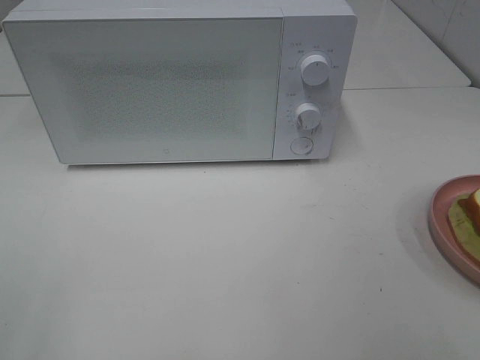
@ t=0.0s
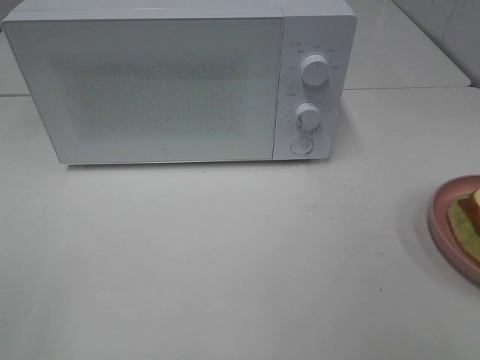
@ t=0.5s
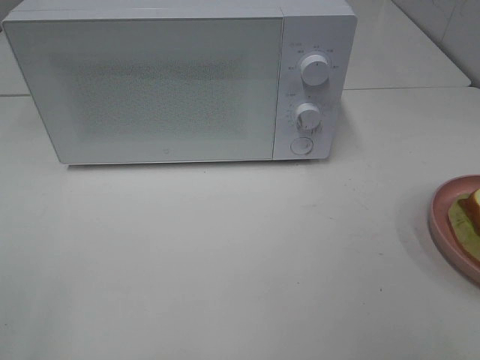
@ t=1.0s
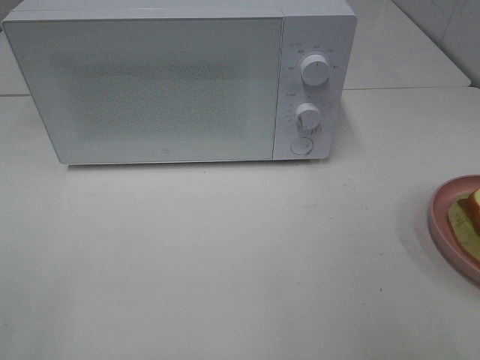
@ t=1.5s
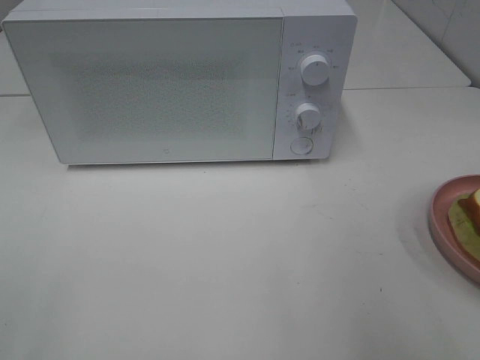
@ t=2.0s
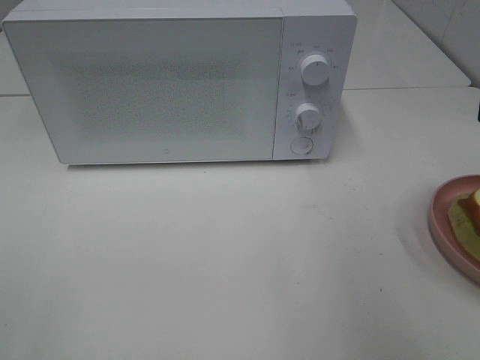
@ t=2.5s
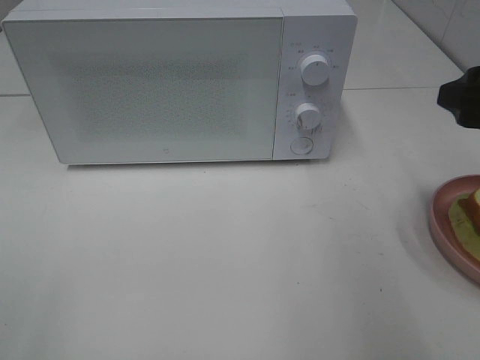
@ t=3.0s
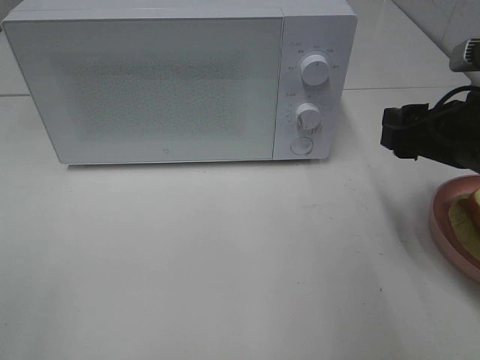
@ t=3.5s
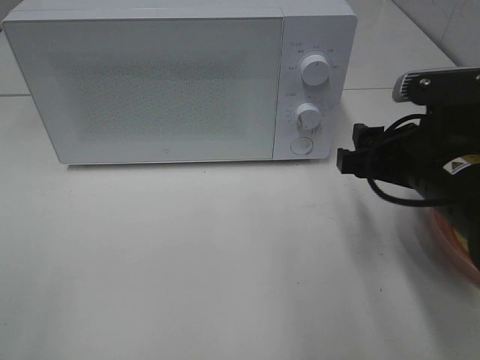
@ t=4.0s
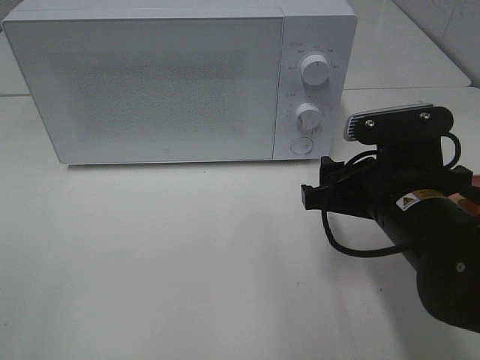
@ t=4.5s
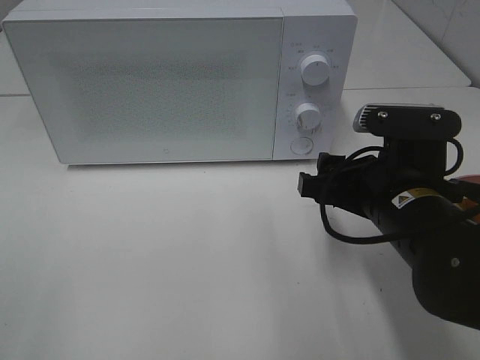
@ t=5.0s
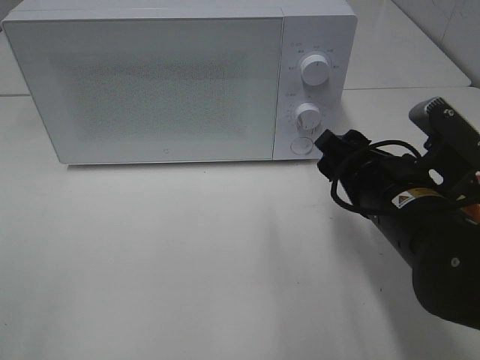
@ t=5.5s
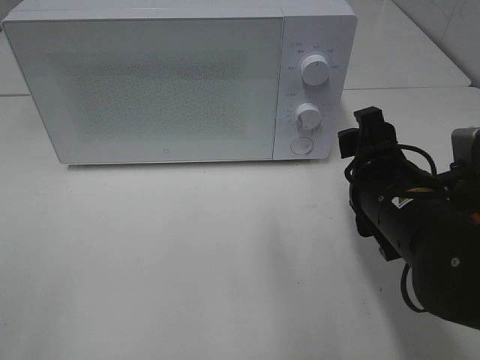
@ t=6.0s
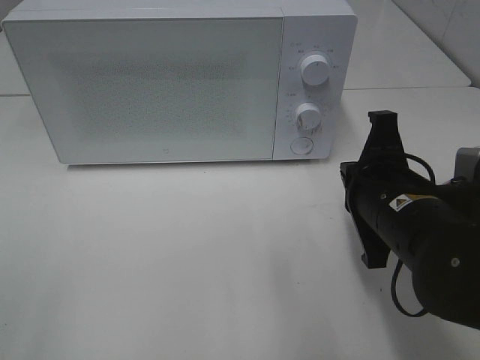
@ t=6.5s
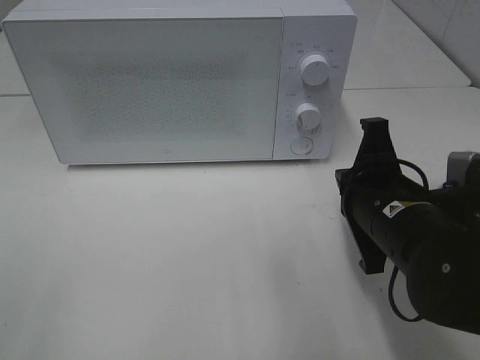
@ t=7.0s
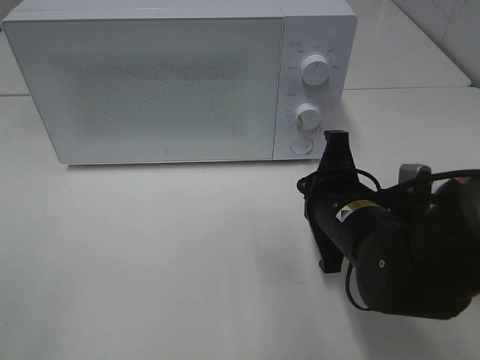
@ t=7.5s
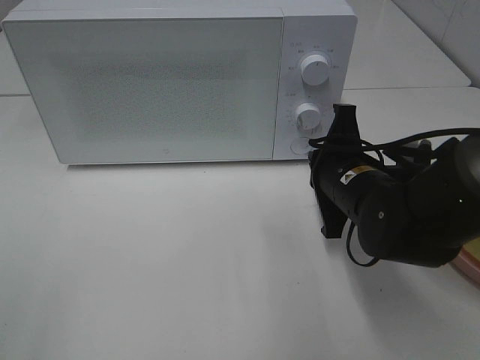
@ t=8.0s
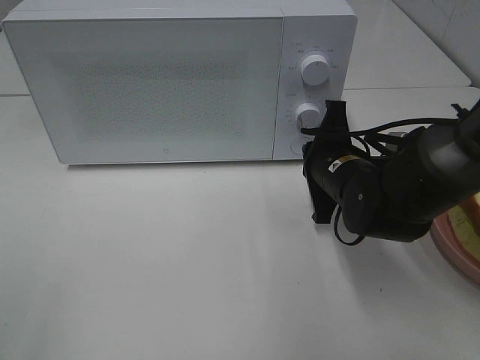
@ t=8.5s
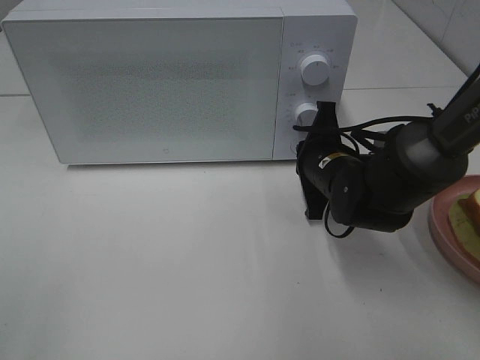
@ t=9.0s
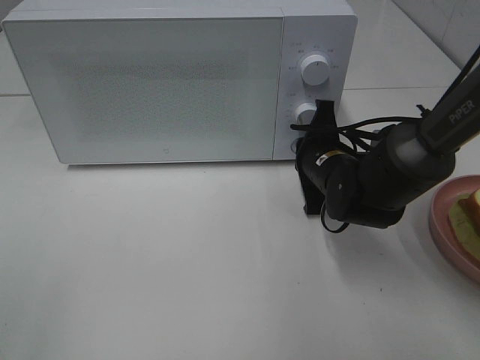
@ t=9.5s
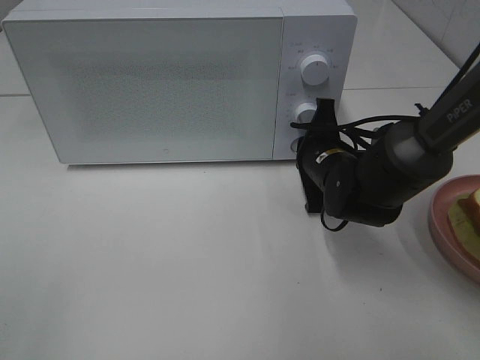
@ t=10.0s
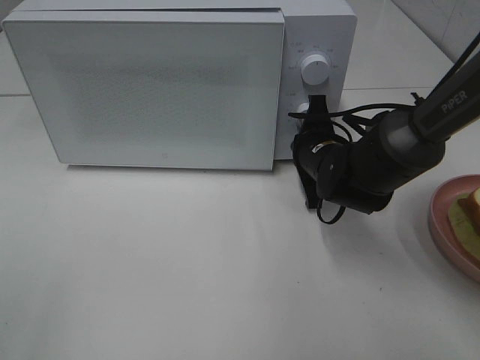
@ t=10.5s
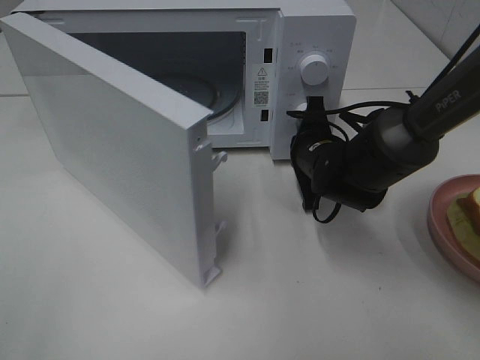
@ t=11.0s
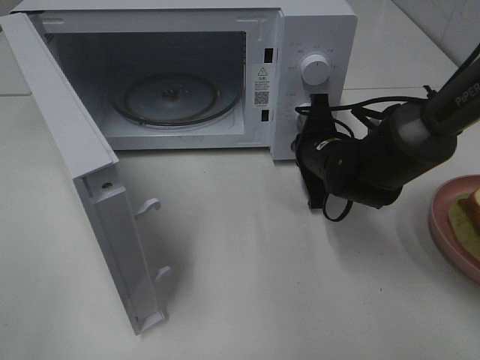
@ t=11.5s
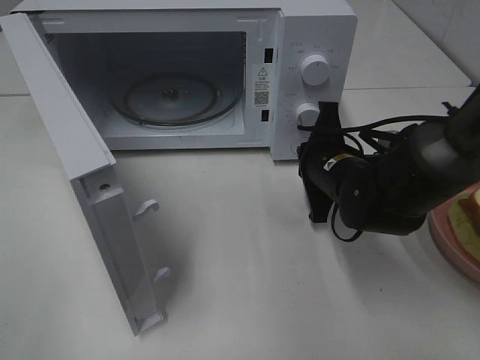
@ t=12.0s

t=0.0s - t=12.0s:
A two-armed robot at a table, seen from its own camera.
Task of the whole recording: Heat Sandwich.
Step, t=0.0s - t=11.5s: Right hand: press the switch.
t=2.0s - t=4.0s: The right gripper is displaced downward, forward and to the left by about 20 cm.
t=6.0s - t=8.0s: The right gripper shifts approximately 5 cm forward, and closes its fingers.
t=8.0s - t=10.0s: The right gripper is displaced forward by approximately 5 cm.

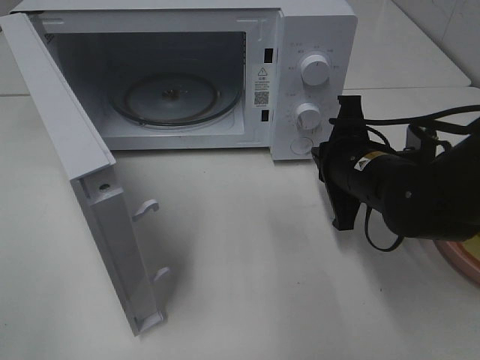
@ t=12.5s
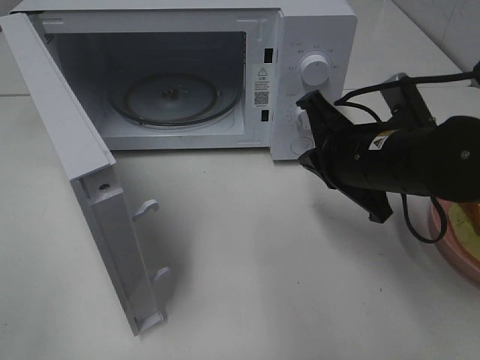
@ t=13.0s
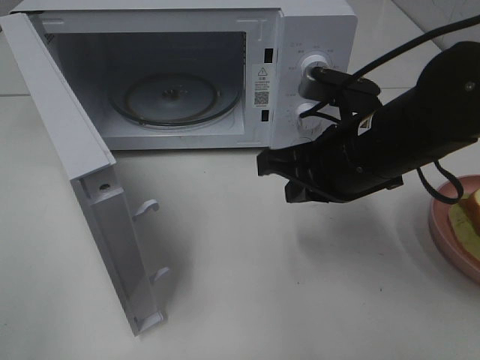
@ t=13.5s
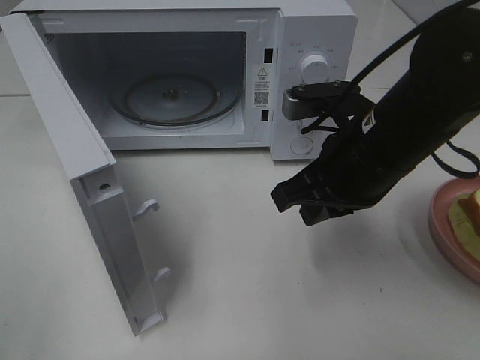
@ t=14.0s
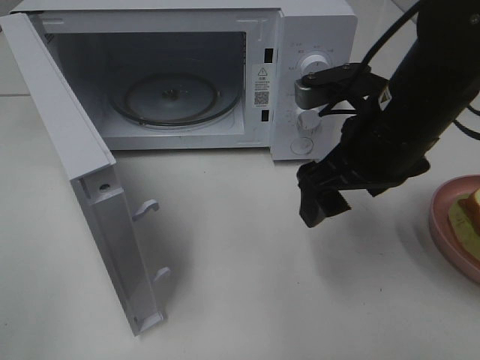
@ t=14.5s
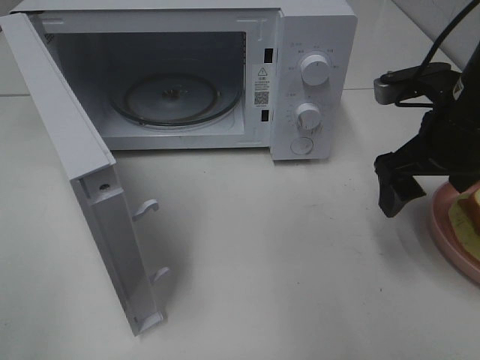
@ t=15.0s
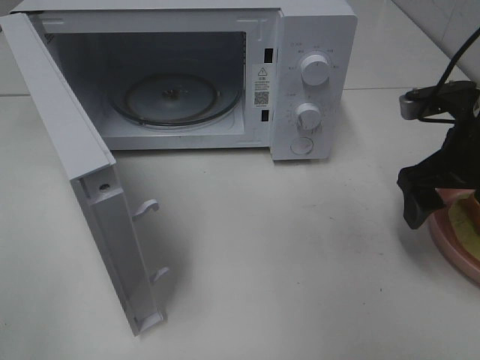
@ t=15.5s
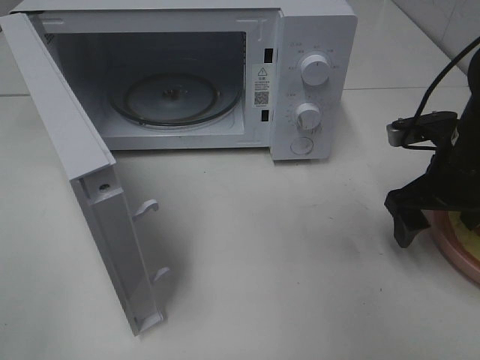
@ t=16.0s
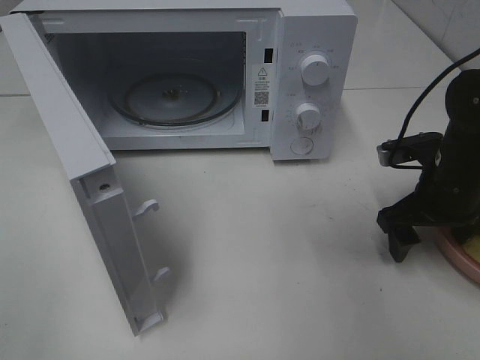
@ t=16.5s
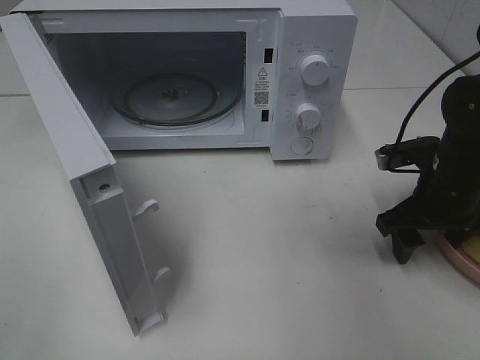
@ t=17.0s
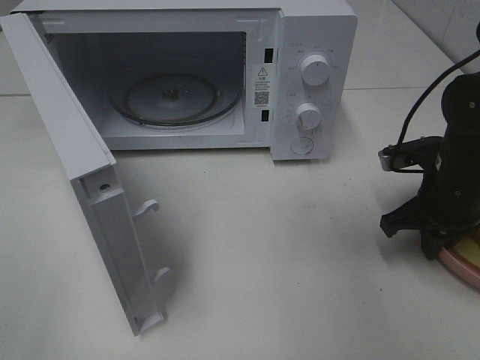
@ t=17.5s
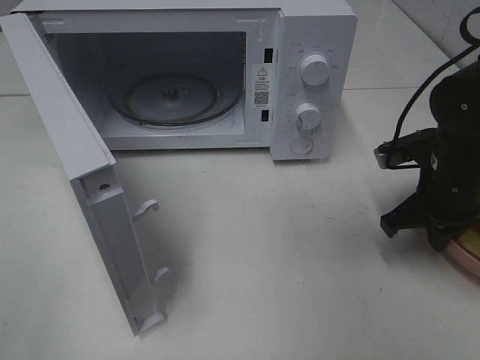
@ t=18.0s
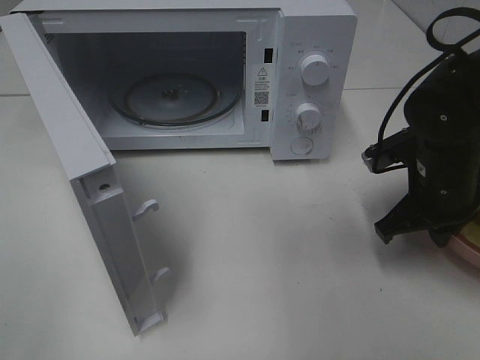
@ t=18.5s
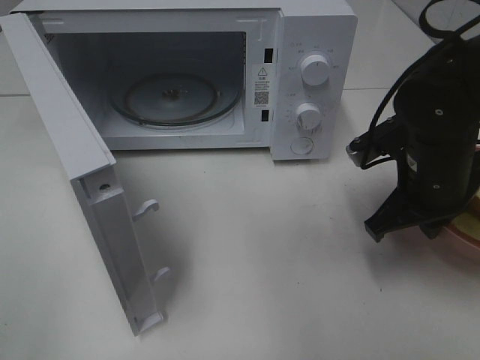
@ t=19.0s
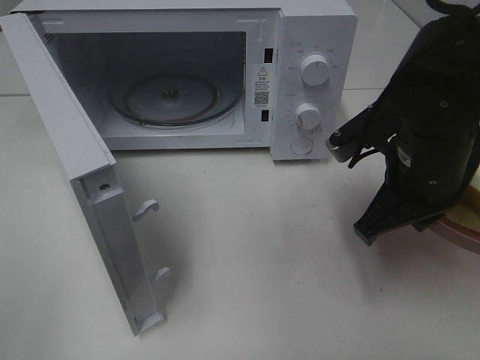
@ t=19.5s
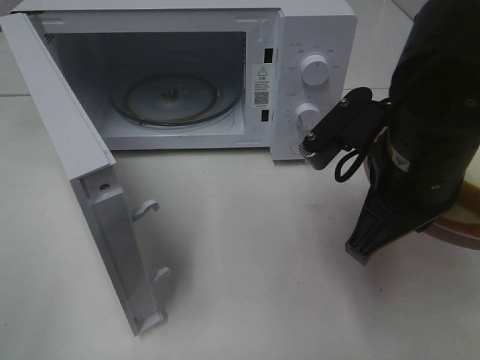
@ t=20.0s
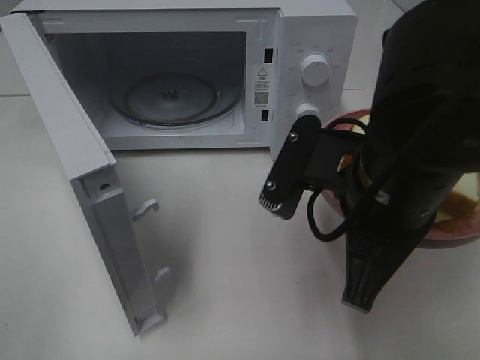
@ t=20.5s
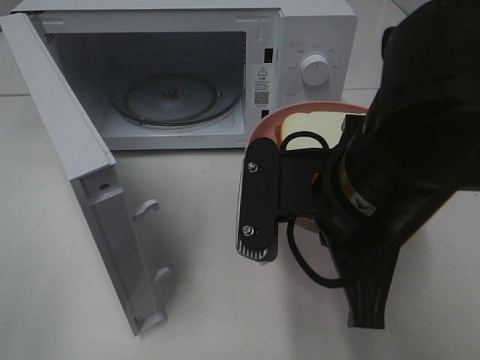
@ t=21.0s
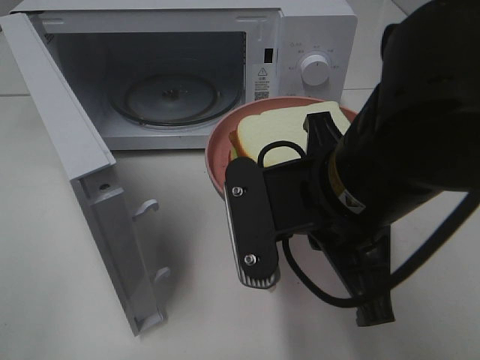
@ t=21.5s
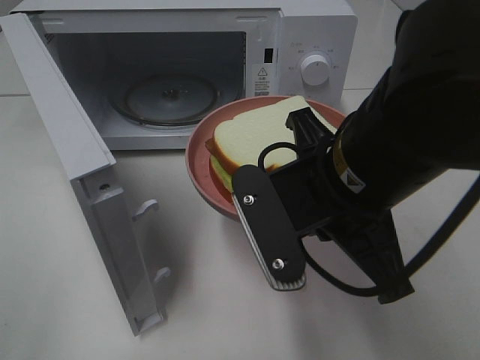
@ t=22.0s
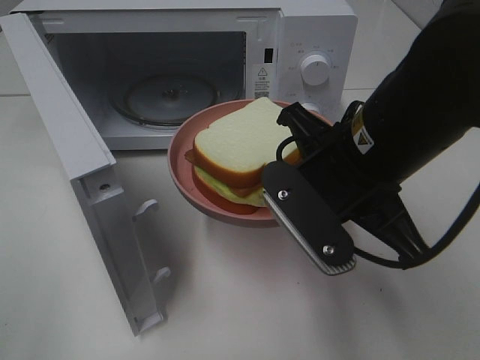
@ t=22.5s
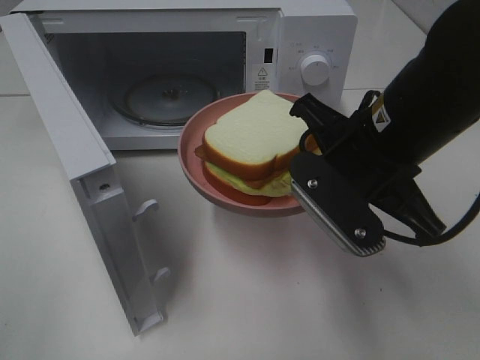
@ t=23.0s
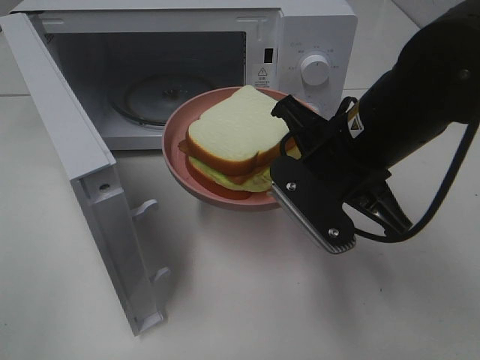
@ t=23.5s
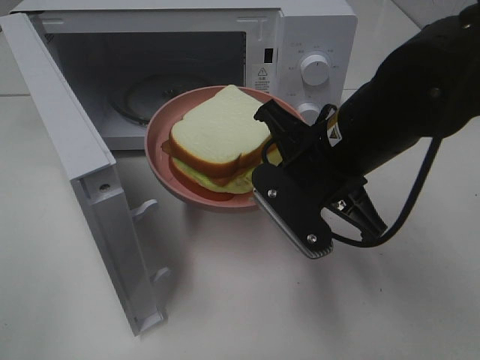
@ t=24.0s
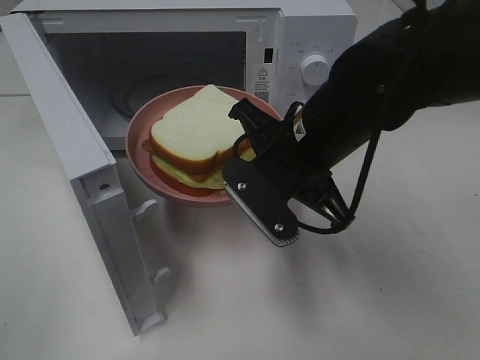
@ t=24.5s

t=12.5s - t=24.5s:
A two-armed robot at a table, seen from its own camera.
Task of the whole recording: Heat Sandwich.
Step, t=12.5s - t=17.5s: Right hand: grab the plate with the sandwich.
t=12.5s - t=14.5s: The right gripper goes some 10 cm upward, and opens.
t=14.5s - t=16.5s: The right gripper goes approximately 15 cm to the right and downward.
t=16.5s - t=18.5s: The right gripper closes up.
t=18.5s - t=20.5s: The right gripper moves to the left, backward and upward, approximately 20 cm.
t=22.5s - t=24.5s: The right gripper moves forward, about 5 cm.

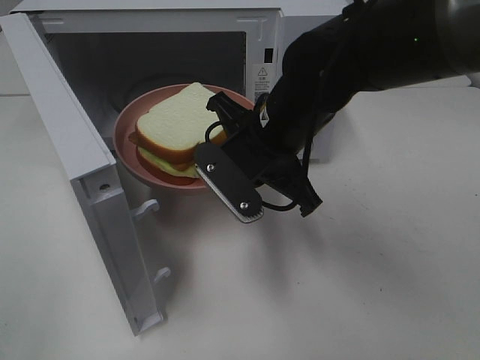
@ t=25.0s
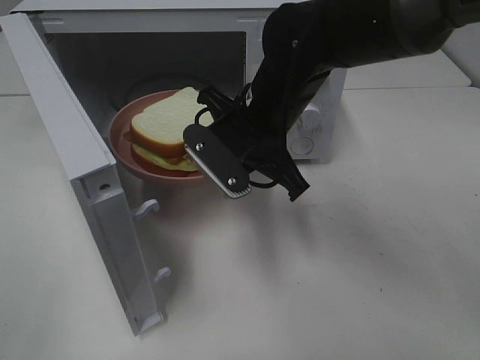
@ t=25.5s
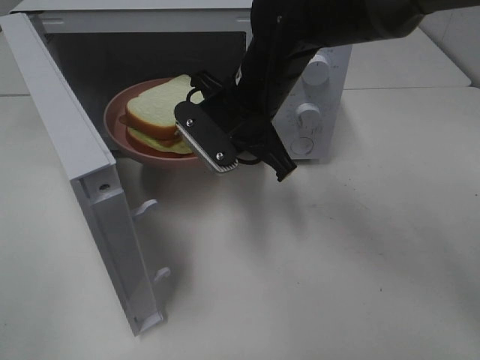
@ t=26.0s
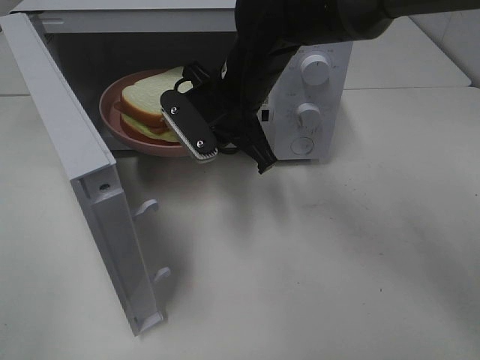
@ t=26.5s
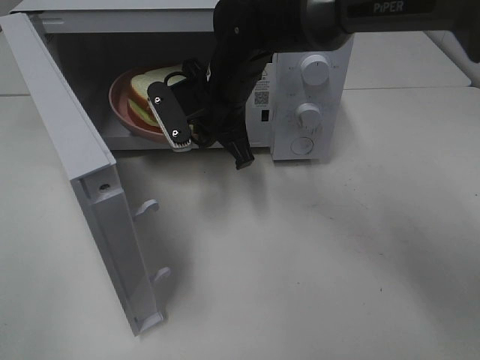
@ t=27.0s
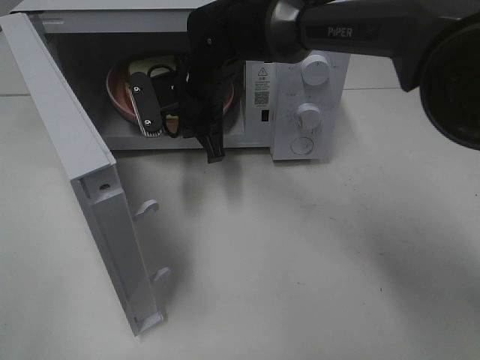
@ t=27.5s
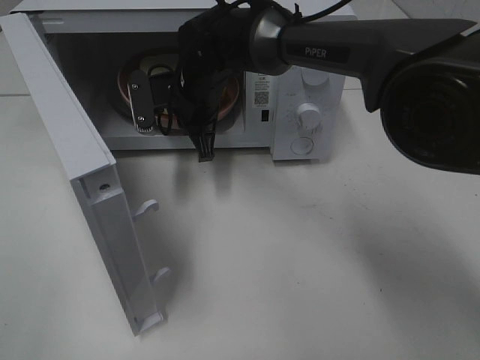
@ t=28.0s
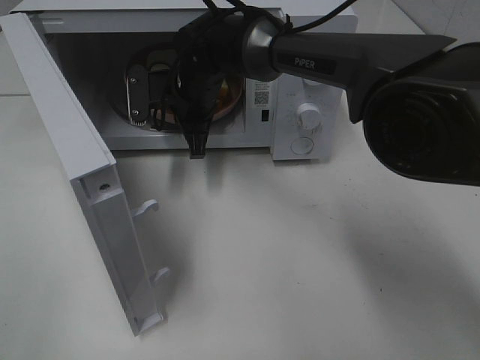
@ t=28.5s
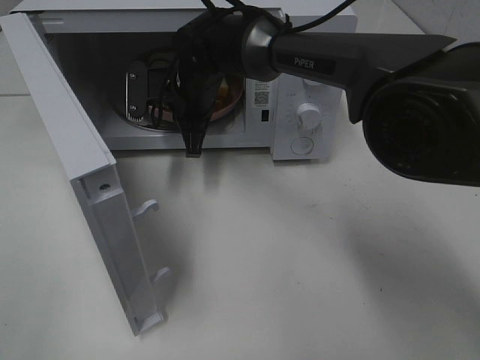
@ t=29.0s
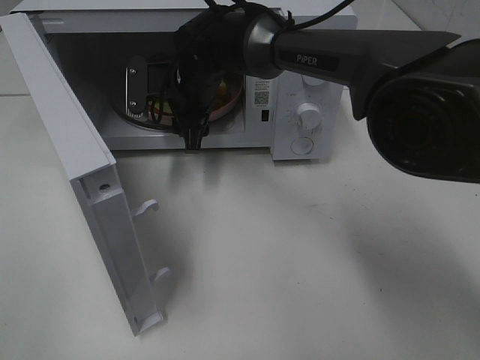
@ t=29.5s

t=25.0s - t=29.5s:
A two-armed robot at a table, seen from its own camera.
Task of the whole recording: Heat Sandwich.
t=25.0s - t=27.0s: The right gripper moves forward and to the left, roughly 10 cm.
t=27.0s - t=29.5s: The right gripper shifts by about 5 cm, and opens.
